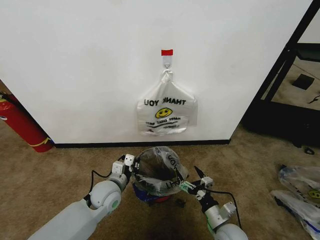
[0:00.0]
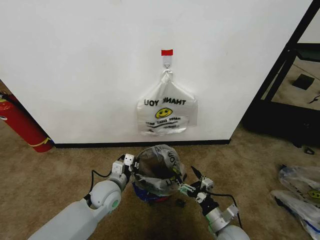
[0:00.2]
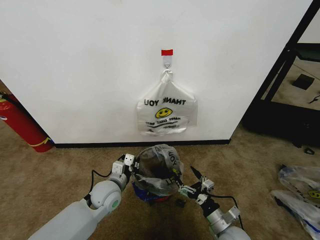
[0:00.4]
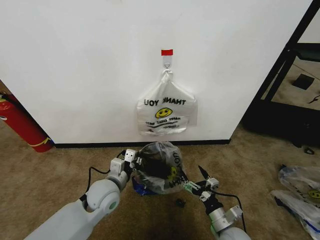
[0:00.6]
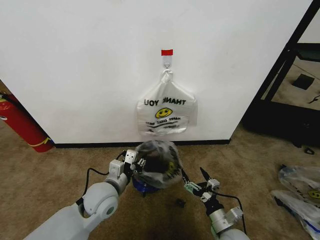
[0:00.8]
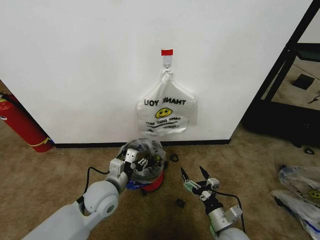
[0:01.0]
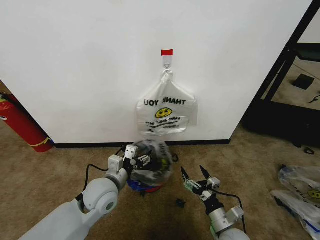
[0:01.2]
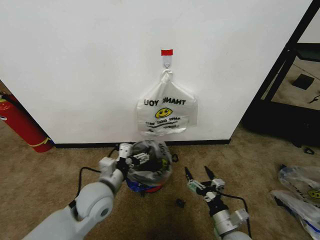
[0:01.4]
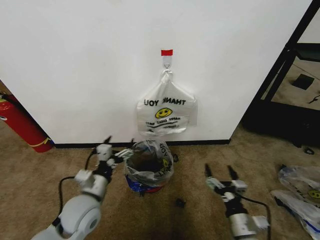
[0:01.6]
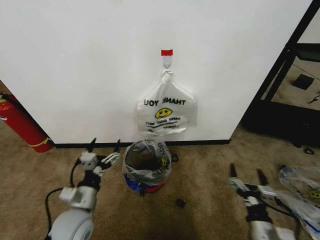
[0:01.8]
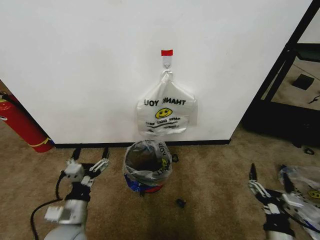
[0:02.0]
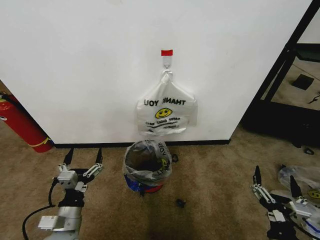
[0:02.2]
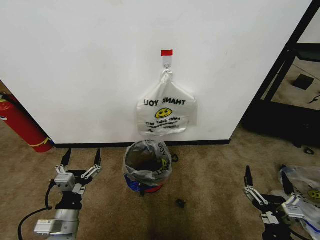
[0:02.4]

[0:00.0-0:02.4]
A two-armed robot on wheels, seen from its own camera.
Task of the whole recording: Pick up the garbage bag from the wall and place it over the trash bin.
0:00.0 to 0:01.2: The left gripper moves upward, approximately 5 cm, and opens.
0:01.2 to 0:02.4: The left gripper travels backward and to the left by approximately 15 cm. Meanwhile the right gripper moves backward, upward and to the right, some 15 cm.

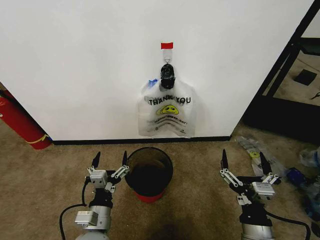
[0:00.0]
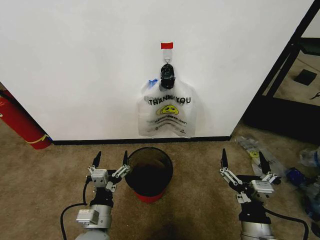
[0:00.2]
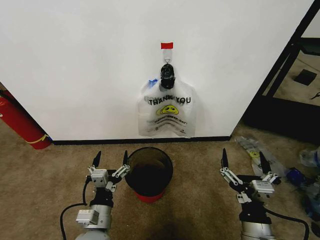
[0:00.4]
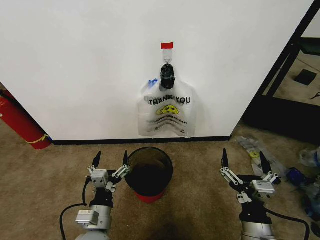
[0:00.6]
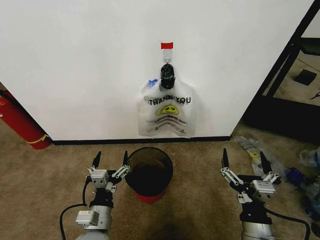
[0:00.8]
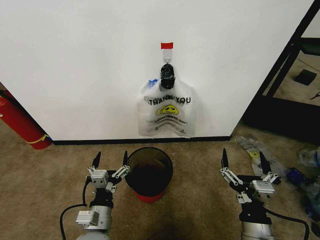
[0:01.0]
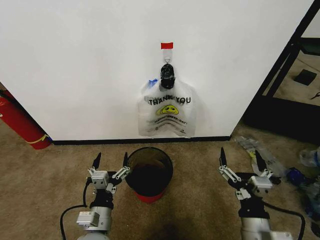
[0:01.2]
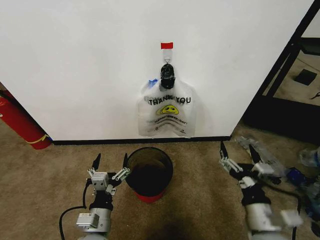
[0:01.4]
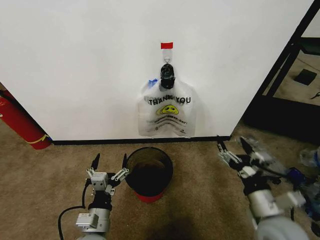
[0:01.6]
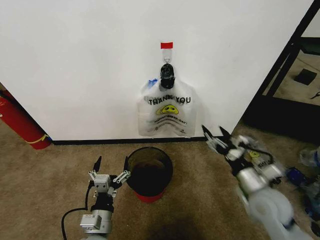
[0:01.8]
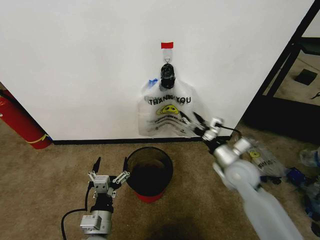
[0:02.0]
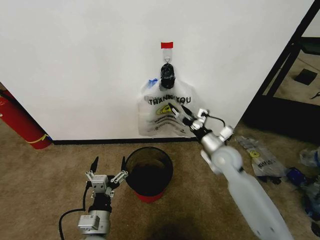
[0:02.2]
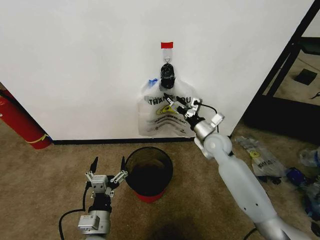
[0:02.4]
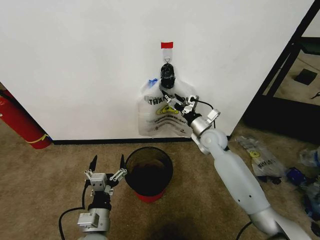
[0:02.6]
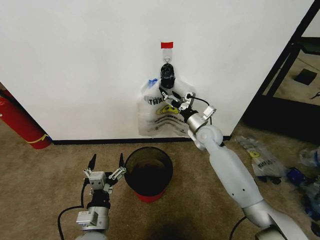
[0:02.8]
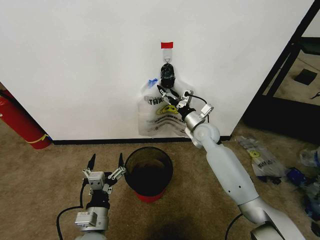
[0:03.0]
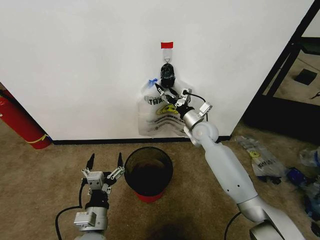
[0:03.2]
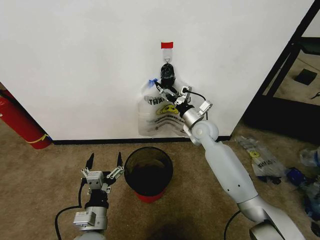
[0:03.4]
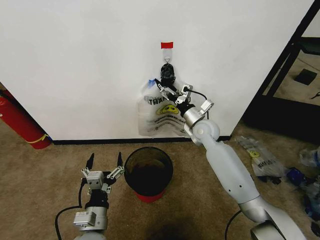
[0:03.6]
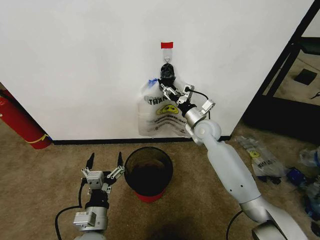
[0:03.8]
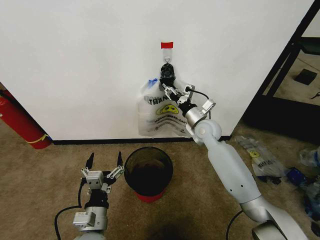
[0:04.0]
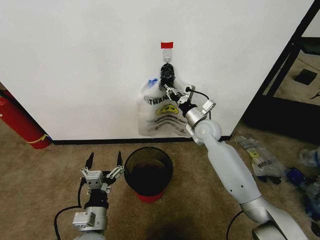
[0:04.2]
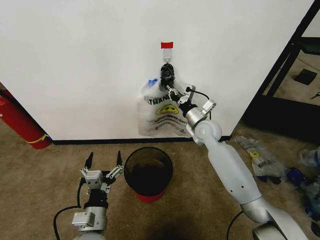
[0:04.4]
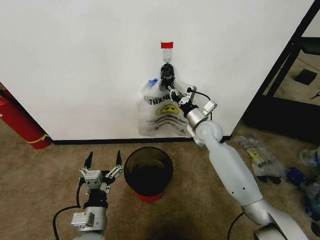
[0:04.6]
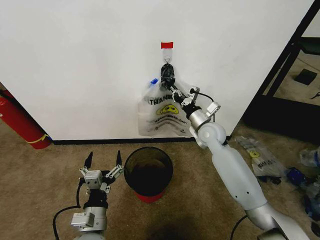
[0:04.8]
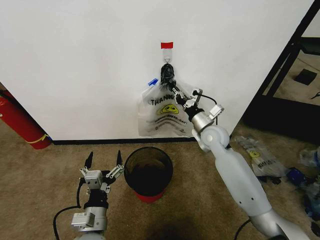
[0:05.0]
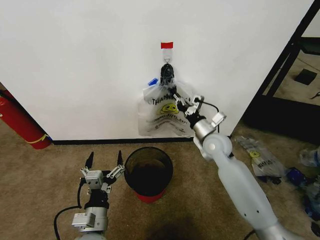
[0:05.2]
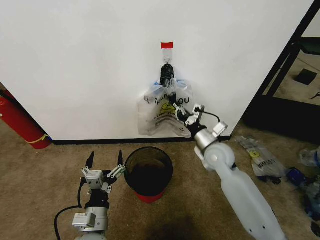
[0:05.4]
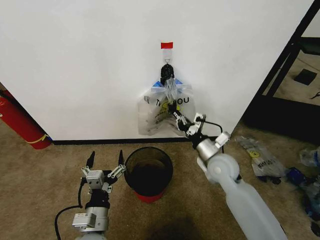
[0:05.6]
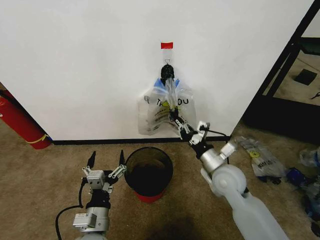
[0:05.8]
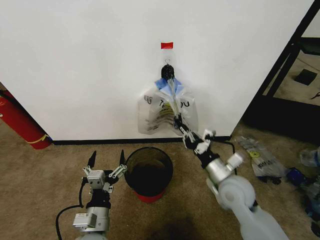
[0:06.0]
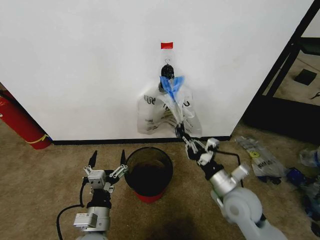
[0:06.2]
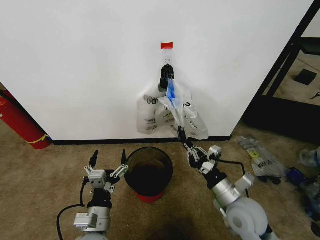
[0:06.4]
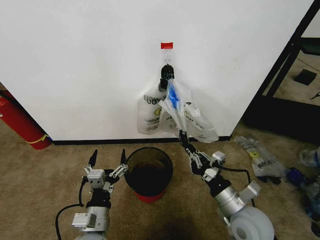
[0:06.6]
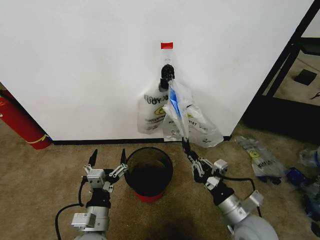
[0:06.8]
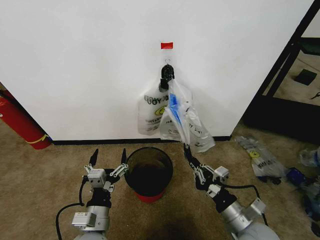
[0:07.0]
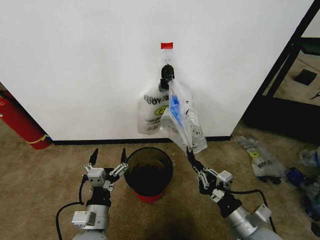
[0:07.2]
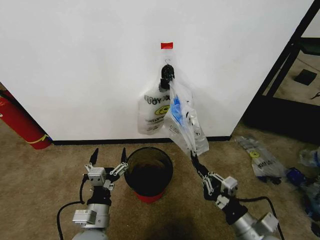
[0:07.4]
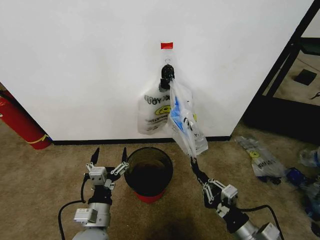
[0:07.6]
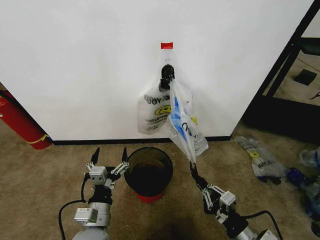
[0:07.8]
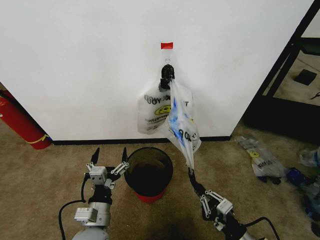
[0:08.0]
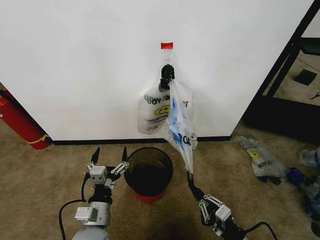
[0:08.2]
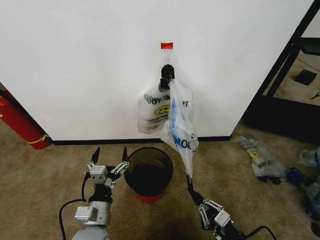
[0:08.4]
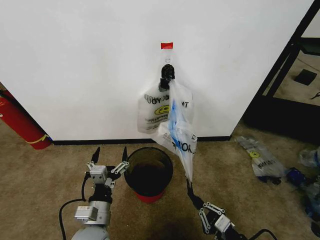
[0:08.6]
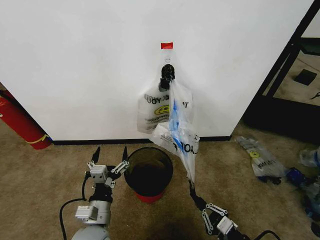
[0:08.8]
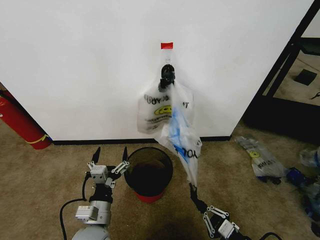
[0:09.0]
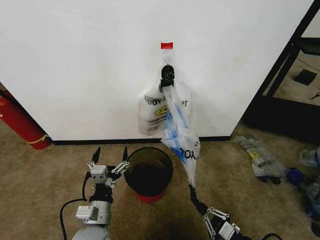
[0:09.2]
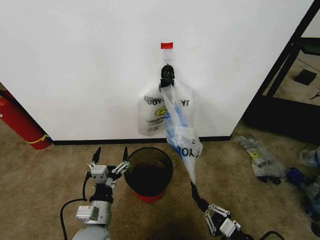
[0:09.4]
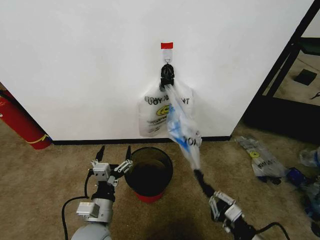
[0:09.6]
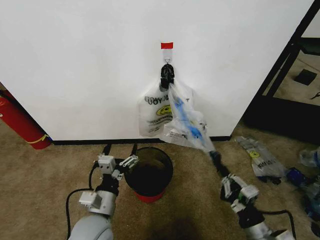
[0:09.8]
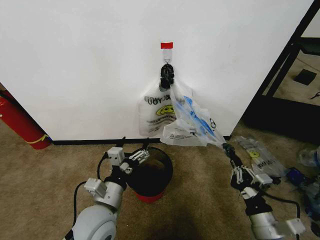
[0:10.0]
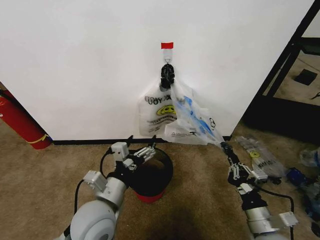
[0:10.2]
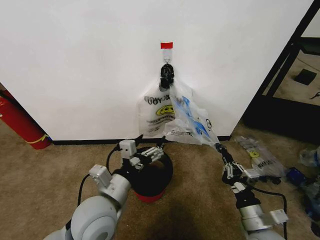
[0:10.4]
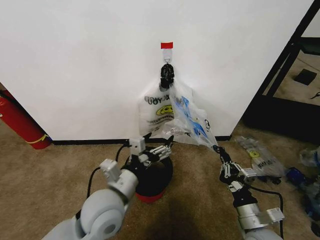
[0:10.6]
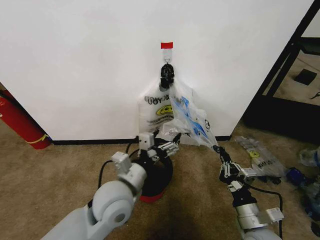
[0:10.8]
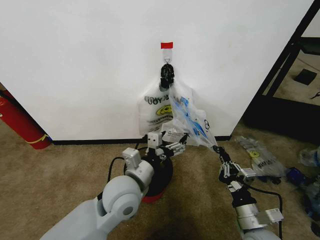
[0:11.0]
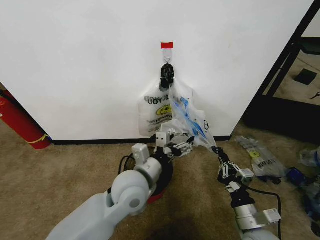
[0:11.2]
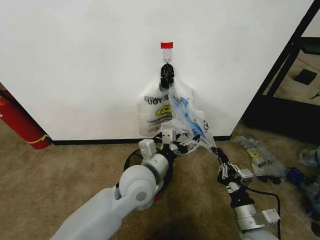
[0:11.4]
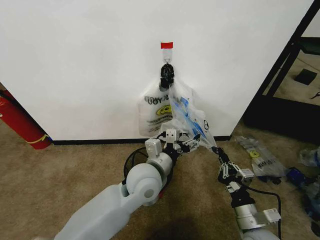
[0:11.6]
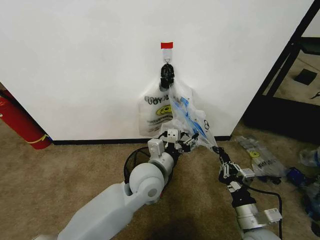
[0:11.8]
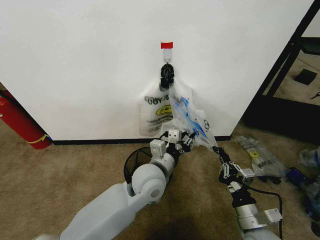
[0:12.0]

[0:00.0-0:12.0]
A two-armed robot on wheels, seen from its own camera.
Task of the whole recording: Pick up the garbage bag from the wall and place it over the trash bin.
0:01.6 to 0:03.0: The right gripper is displaced forward by some 35 cm.
0:03.0 to 0:04.4: The right gripper closes up.
0:04.4 to 0:06.0: The right gripper moves backward, some 20 cm.
0:06.0 to 0:07.6: The right gripper goes roughly 15 cm backward.
0:07.6 to 0:09.0: The right gripper shifts roughly 5 cm downward.
0:09.0 to 0:10.4: The left gripper goes roughly 10 cm upward; the right gripper is displaced forward and upward by about 10 cm.
0:10.4 to 0:12.0: The left gripper travels to the right and forward by about 15 cm, and closes up.

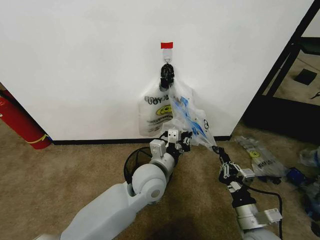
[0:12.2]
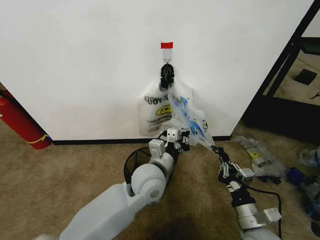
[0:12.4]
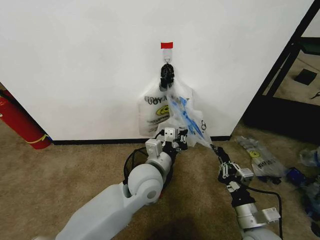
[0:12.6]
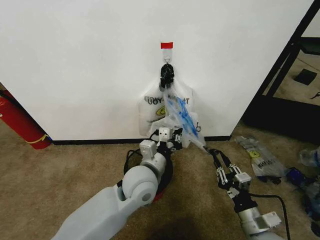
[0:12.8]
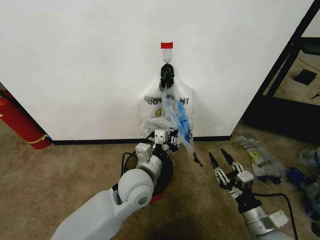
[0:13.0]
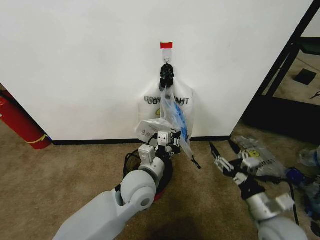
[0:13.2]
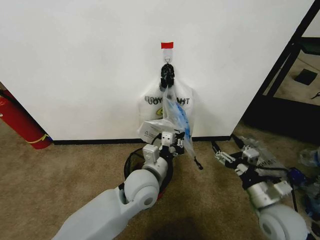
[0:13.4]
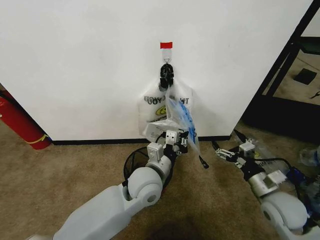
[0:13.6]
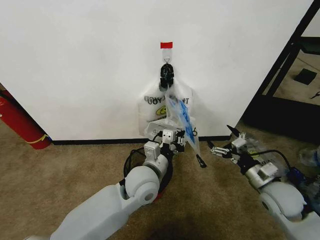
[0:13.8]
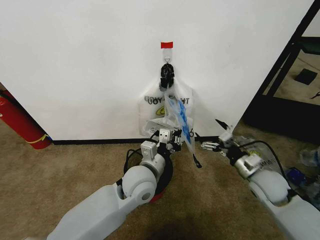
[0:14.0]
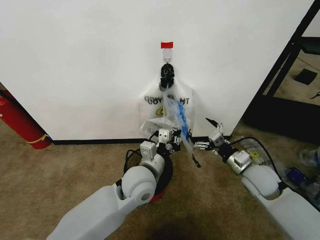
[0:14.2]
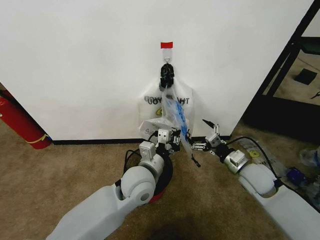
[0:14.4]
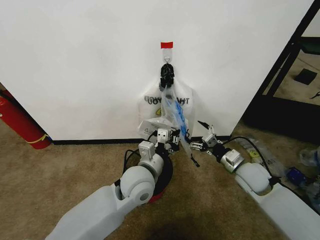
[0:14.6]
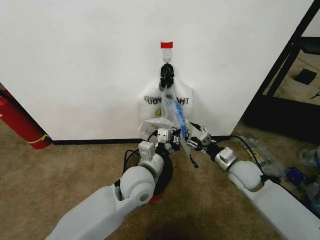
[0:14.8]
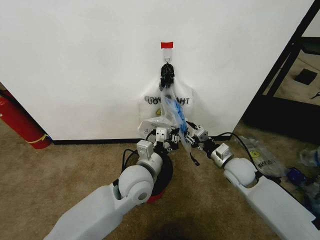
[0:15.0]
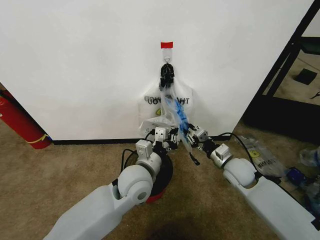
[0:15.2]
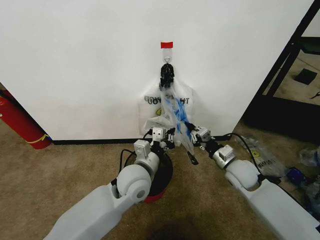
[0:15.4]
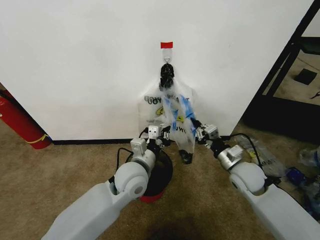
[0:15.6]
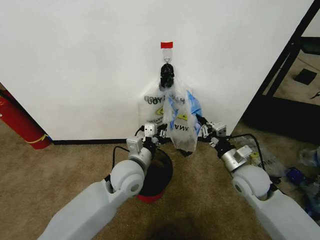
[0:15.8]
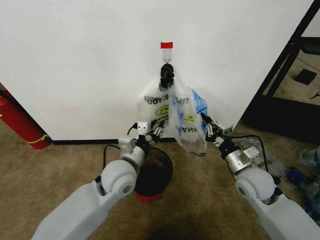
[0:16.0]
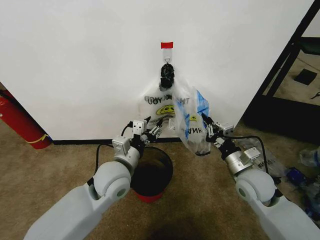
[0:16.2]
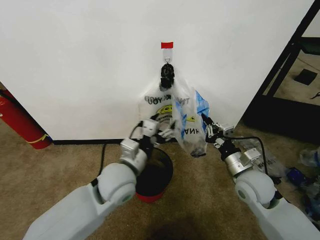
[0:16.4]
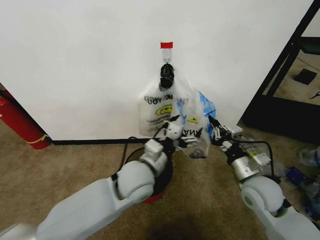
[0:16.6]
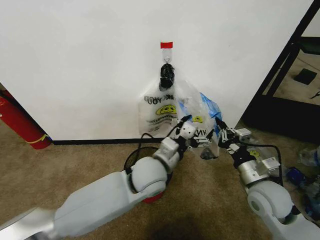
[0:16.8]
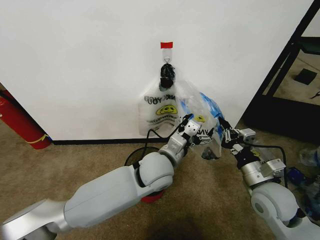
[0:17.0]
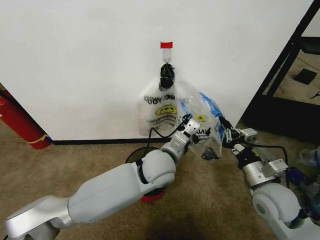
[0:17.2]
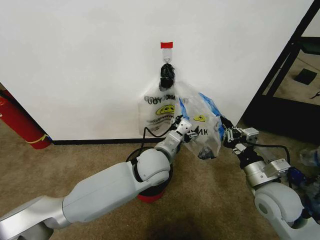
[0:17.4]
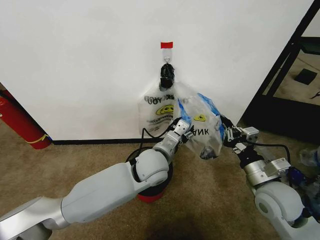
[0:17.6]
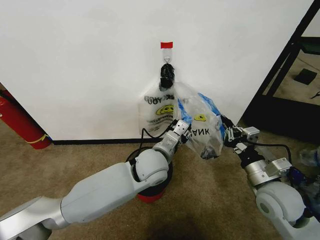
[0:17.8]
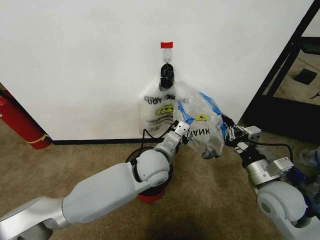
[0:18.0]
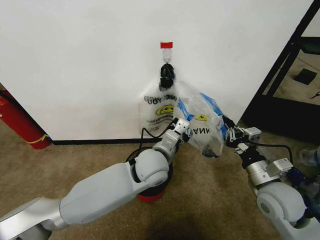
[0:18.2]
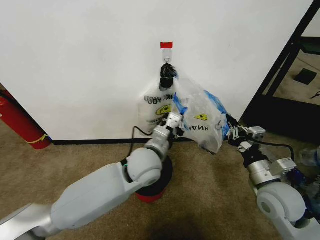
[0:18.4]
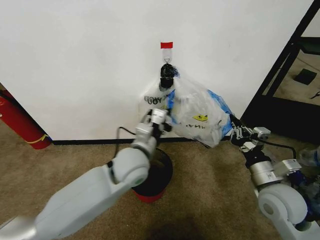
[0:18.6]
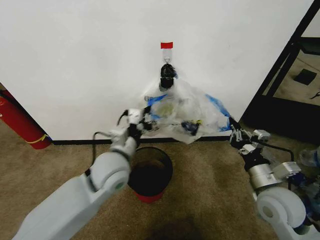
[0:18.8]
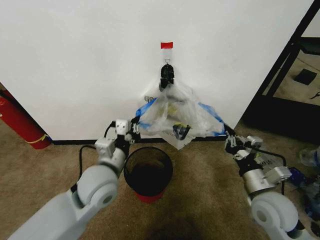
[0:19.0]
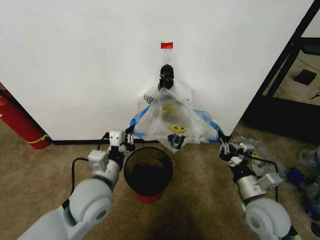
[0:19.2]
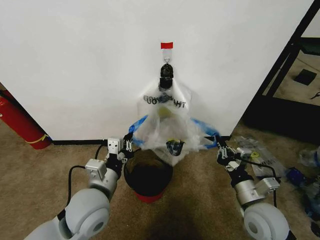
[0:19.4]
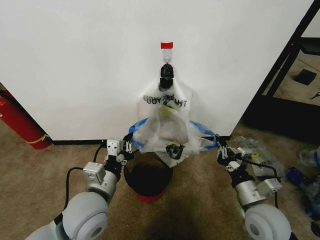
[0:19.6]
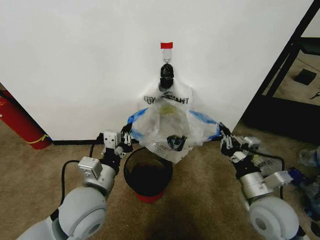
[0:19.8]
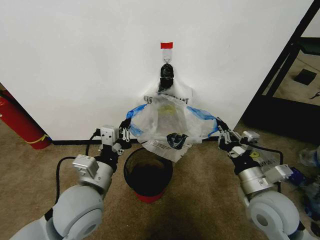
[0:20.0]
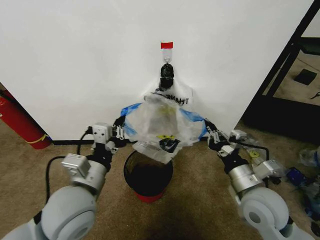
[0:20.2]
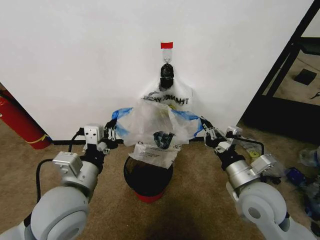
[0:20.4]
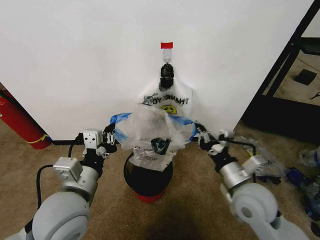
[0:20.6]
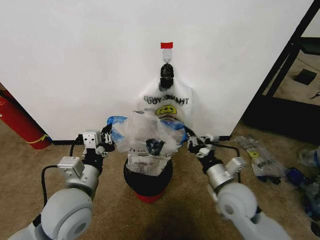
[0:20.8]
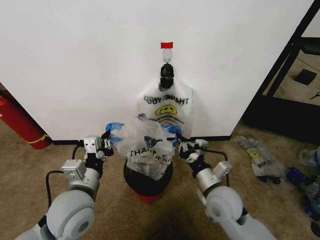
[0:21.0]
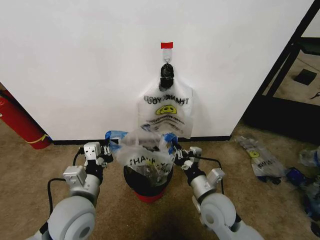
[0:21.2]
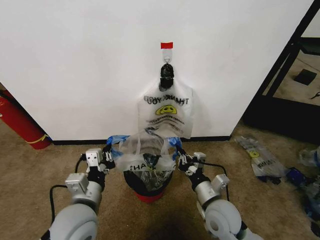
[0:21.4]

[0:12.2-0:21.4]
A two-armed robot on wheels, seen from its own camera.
Task of the whole recording: Pick up the garbage bag from the wall and place it over the trash bin.
0:12.2 to 0:13.8: The right gripper travels forward and to the right by about 15 cm, and opens its fingers.
0:13.8 to 0:15.2: The right gripper goes roughly 10 cm forward and to the left, and closes.
0:15.2 to 0:16.8: The right gripper is displaced backward and upward by approximately 10 cm; the left gripper ends up about 5 cm from where it was, and opens up.
0:16.8 to 0:18.4: The left gripper closes up.
0:18.4 to 0:19.8: The left gripper shifts some 20 cm to the left and backward. The right gripper shifts by approximately 5 cm.
0:19.8 to 0:21.4: The left gripper changes place by some 5 cm, while the right gripper heads to the left and downward, covering approximately 10 cm.
